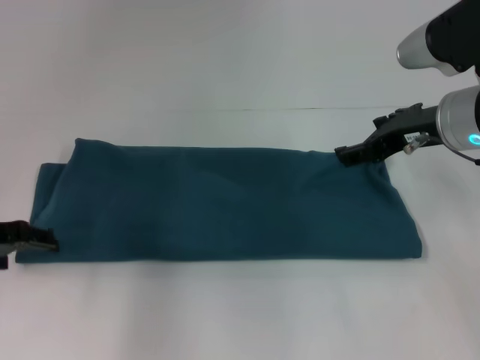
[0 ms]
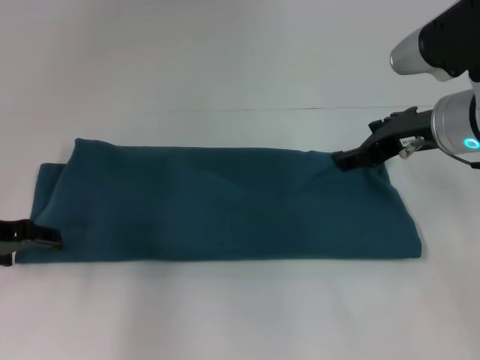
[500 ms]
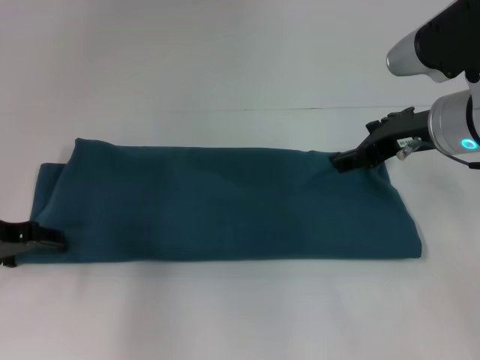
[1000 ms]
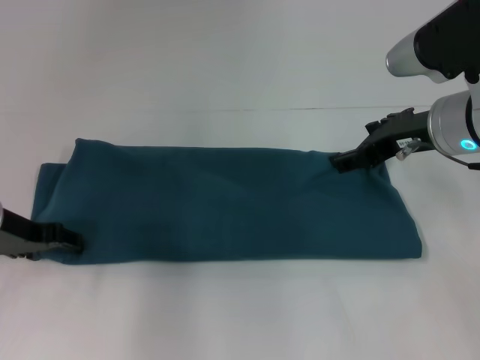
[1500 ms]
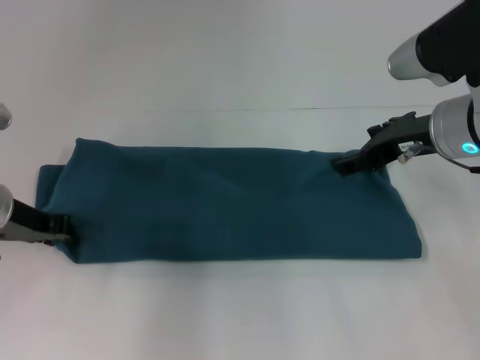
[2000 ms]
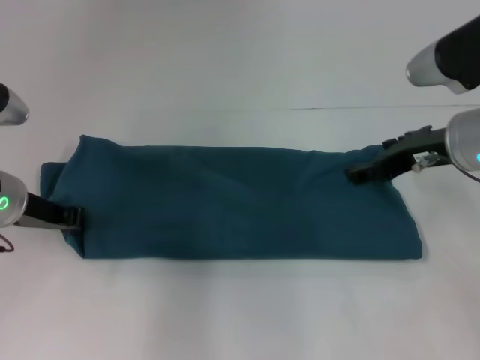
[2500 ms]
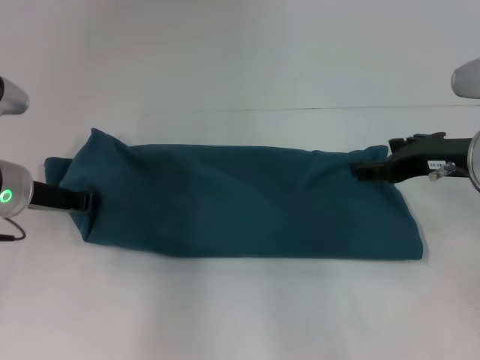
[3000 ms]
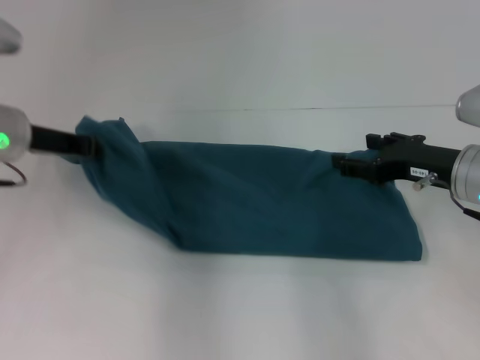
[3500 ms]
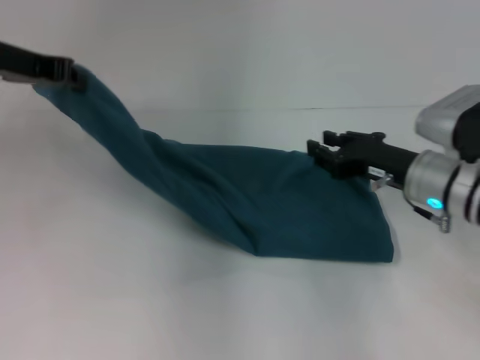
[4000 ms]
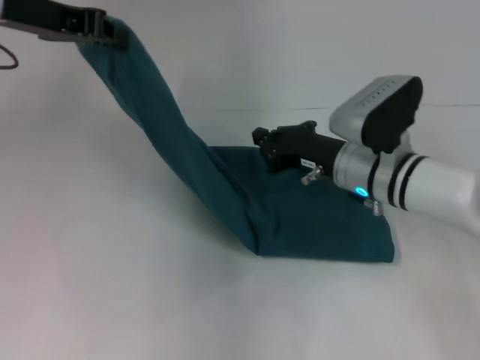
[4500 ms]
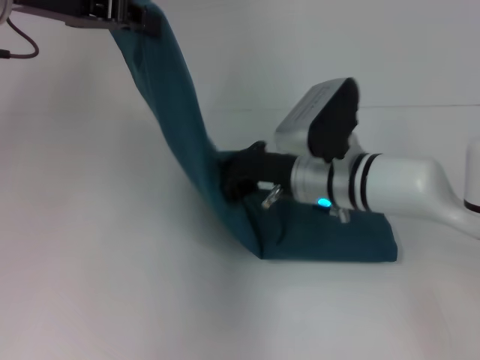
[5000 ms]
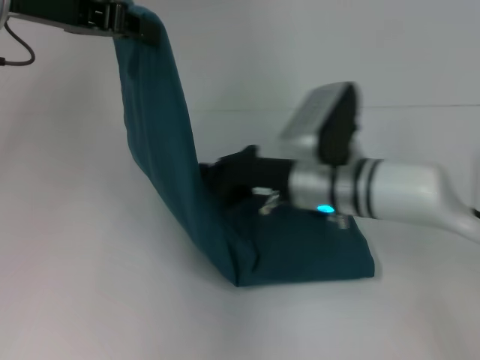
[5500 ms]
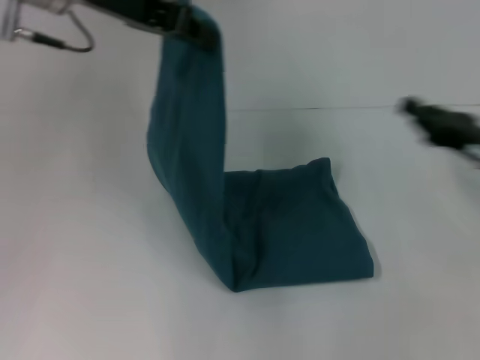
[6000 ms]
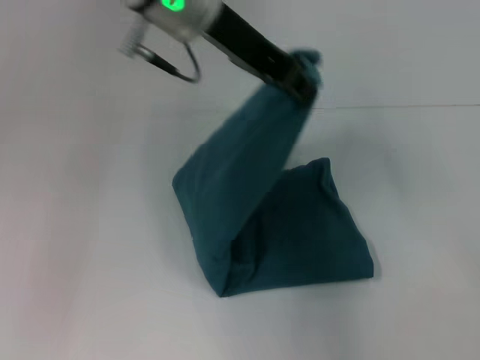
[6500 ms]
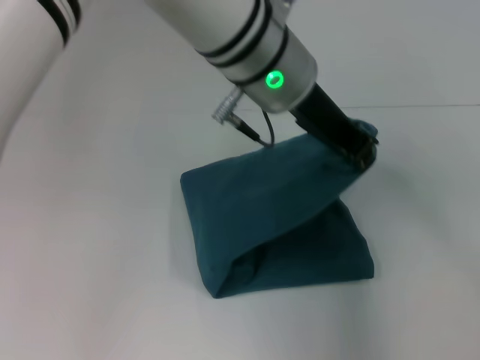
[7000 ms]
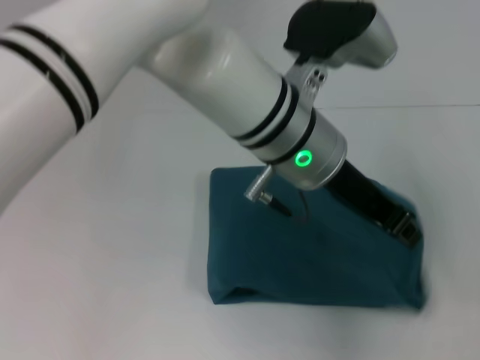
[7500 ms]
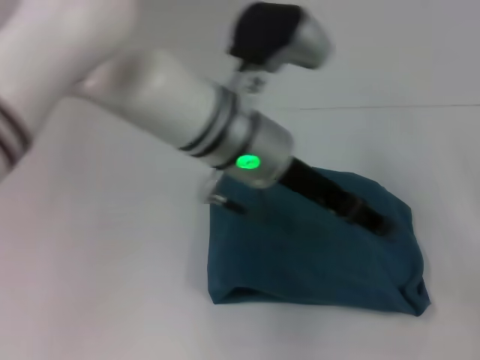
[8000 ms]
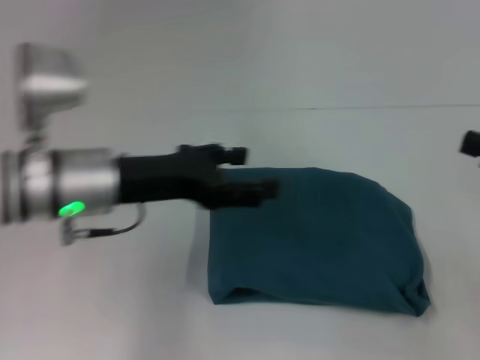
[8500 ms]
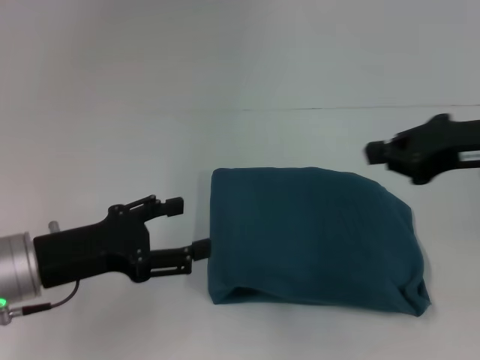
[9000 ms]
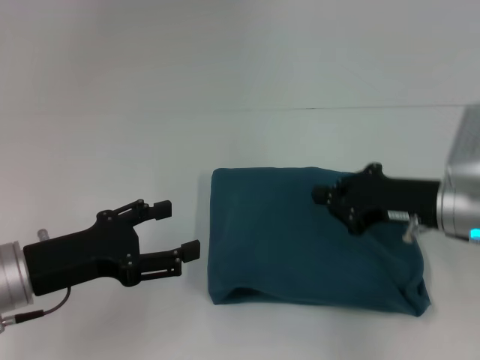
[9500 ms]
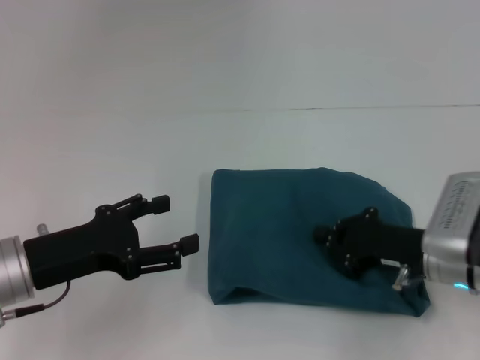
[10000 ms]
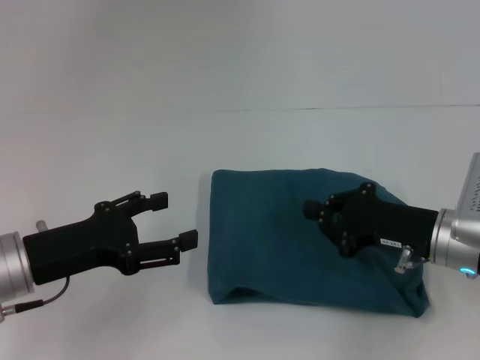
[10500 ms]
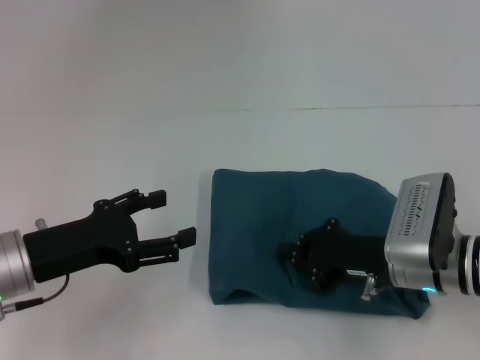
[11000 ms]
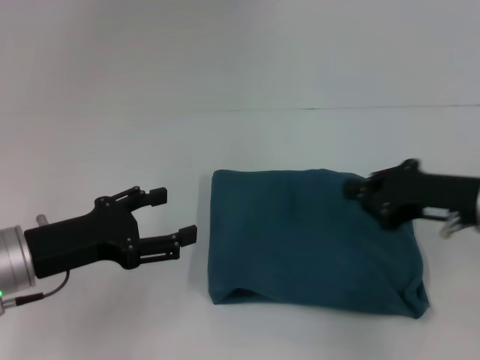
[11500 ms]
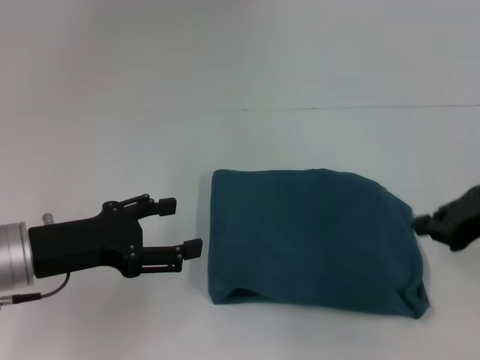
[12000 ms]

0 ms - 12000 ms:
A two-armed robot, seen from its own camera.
Step, 0 ms - 5000 ms: Press the middle of the clothes with your right hand.
Step, 5500 ms - 7500 ms: Fold the clothes to the left.
0 ms - 2000 ms: The left gripper moves approximately 5 cm, and closes.
2000 ms - 4000 ms: The right gripper heads downward, covering roughly 10 cm, and closes up. Meanwhile the left gripper heads upward, covering roughly 15 cm.
4000 ms - 6000 ms: The left gripper travels to the right and upward by some 10 cm. Meanwhile the right gripper travels to the right by some 10 cm, and closes up.
6000 ms - 8000 ms: The left gripper travels to the right, downward and backward by roughly 20 cm, and opens, while the right gripper is displaced to the right and backward by about 15 cm.
8000 ms - 10000 ms: Both grippers travel together to the left and downward, some 20 cm. The left gripper opens its fingers.
10000 ms - 12000 ms: The right gripper travels upward and to the right by approximately 15 cm.

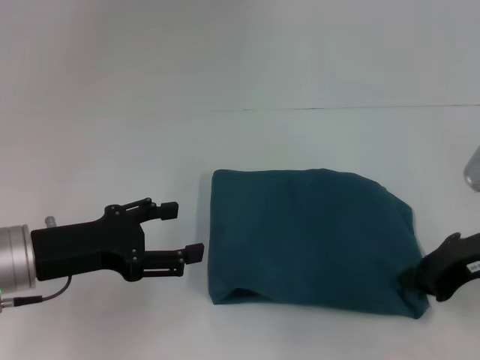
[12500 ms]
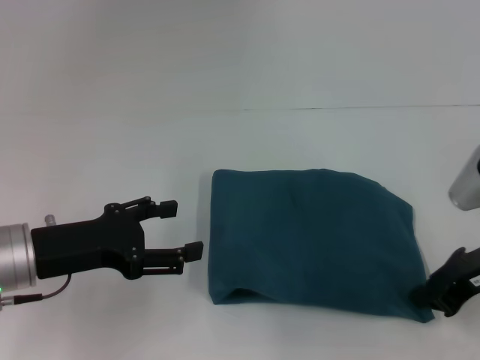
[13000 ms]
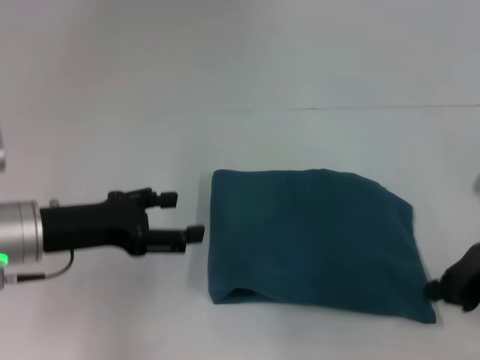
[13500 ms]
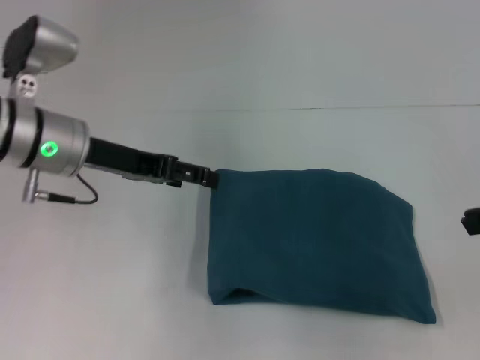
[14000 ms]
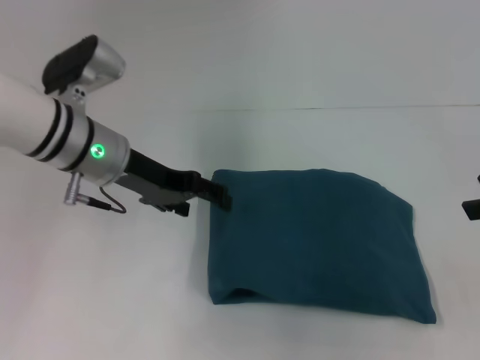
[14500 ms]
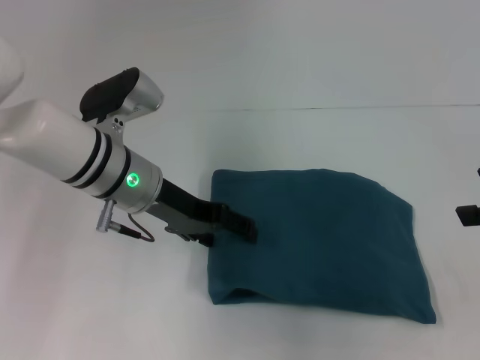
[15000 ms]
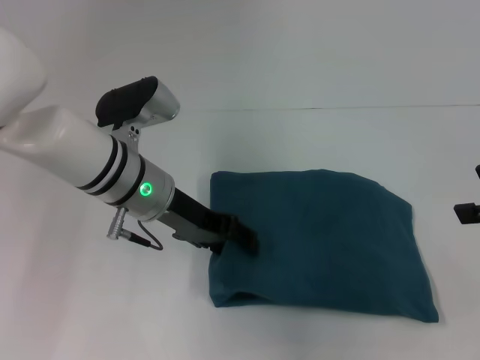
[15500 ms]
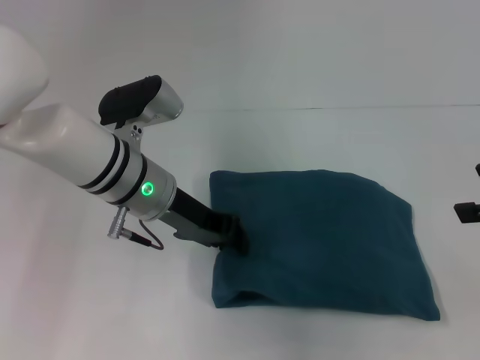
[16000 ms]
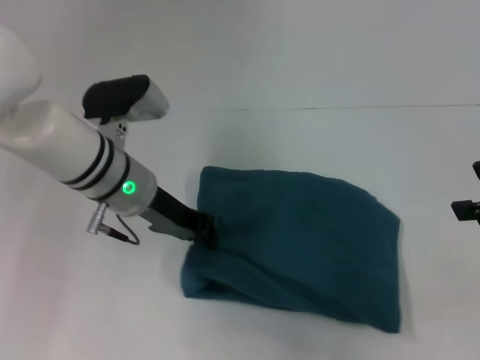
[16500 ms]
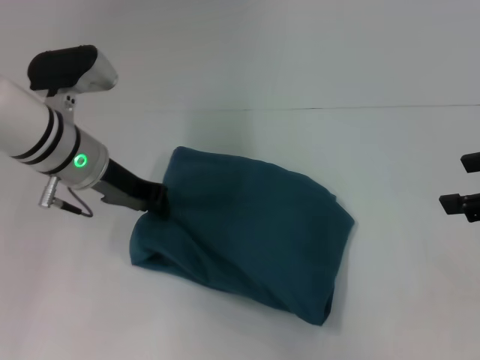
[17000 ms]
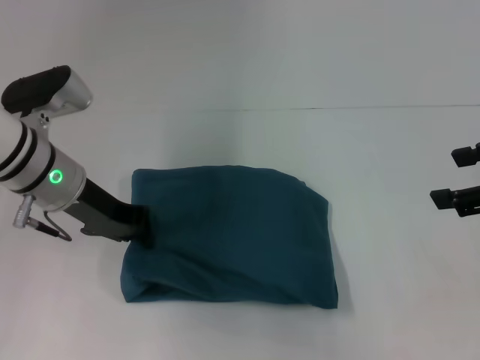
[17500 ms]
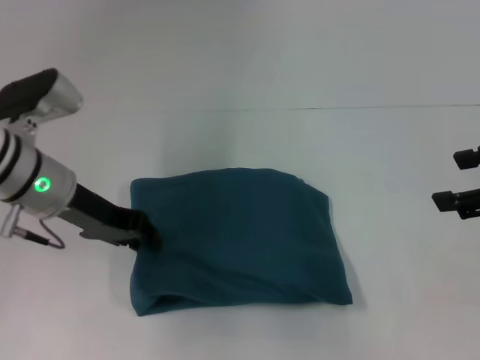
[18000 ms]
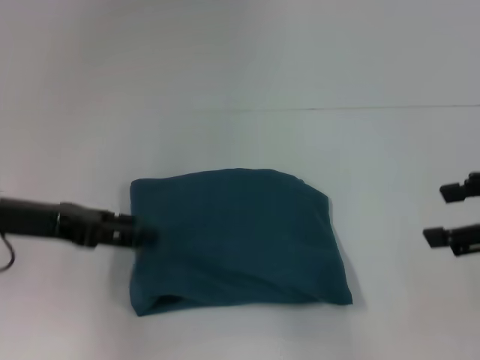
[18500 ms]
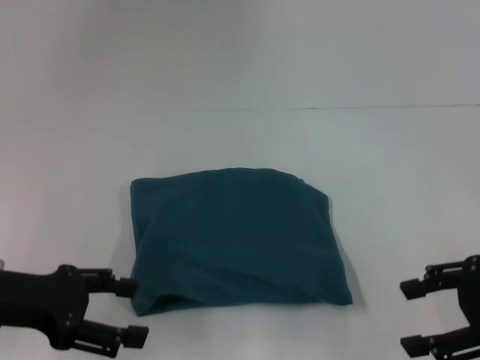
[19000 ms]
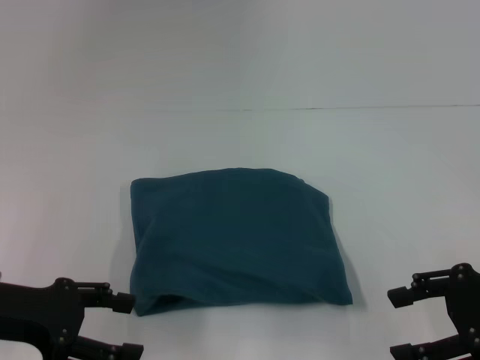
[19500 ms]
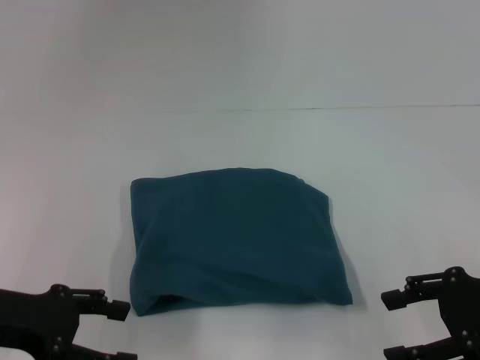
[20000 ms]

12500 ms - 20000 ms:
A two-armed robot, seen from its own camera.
12500 ms - 14500 ms: The left gripper goes roughly 15 cm forward and to the right. The right gripper shifts some 10 cm upward and to the right, and opens up.
14500 ms - 16500 ms: The left gripper closes. The right gripper opens up.
16500 ms - 18000 ms: The left gripper moves to the left, approximately 5 cm.
18000 ms - 20000 ms: The left gripper is displaced backward and to the left by about 15 cm, and opens its fingers, while the right gripper heads downward, covering about 10 cm.

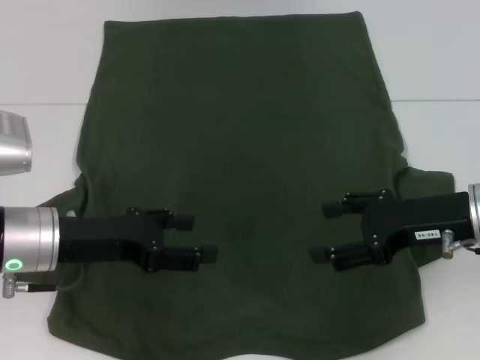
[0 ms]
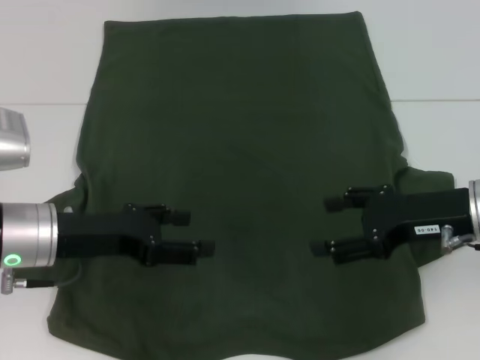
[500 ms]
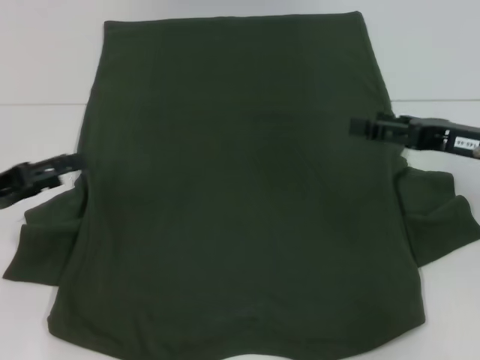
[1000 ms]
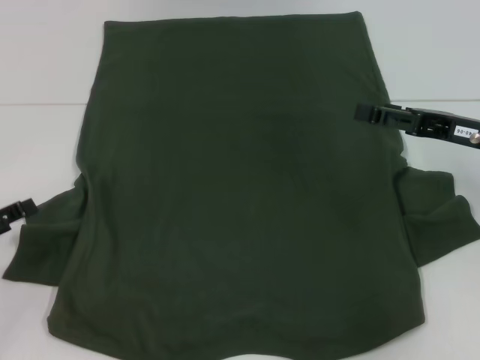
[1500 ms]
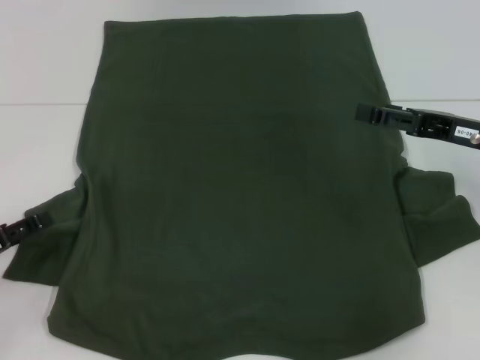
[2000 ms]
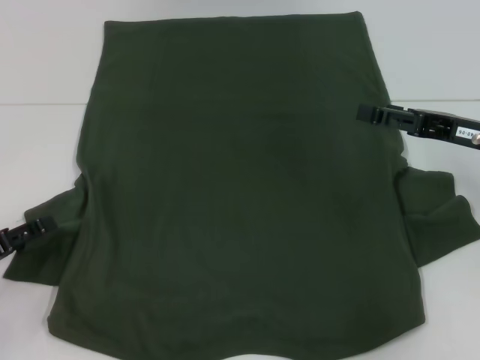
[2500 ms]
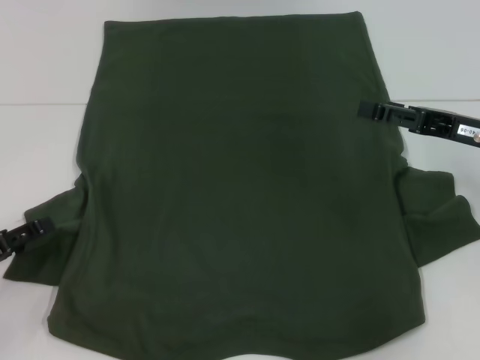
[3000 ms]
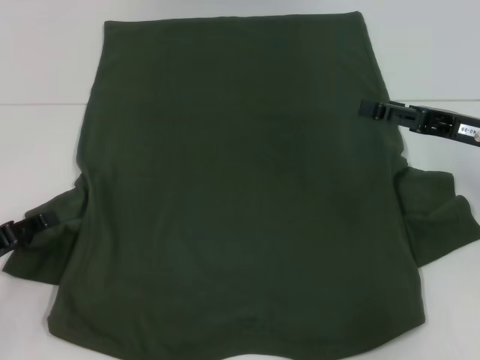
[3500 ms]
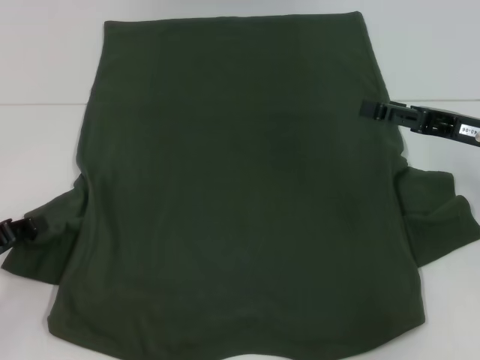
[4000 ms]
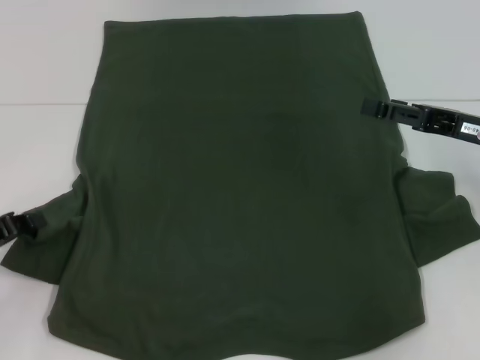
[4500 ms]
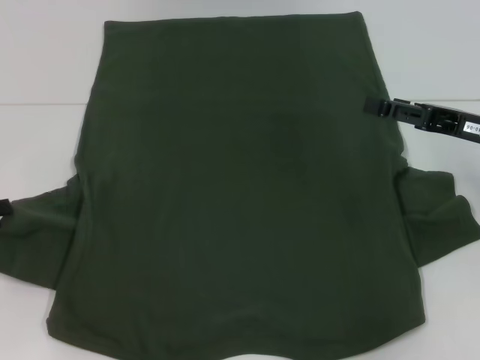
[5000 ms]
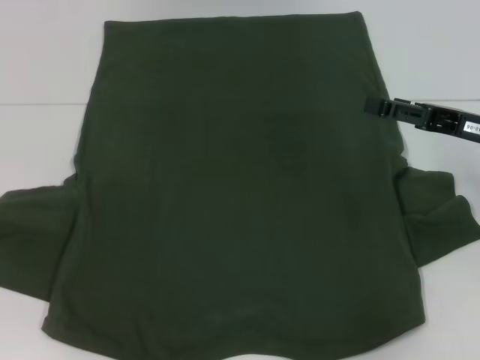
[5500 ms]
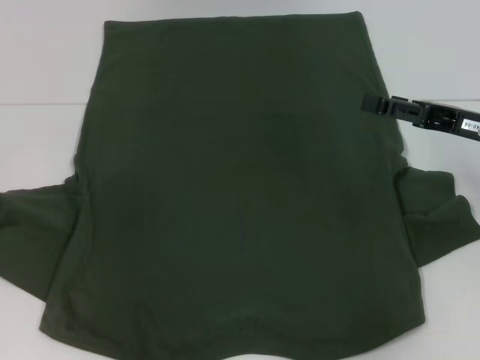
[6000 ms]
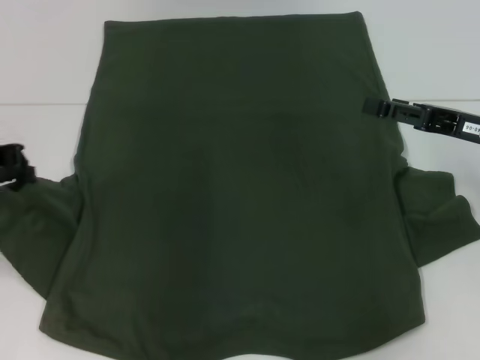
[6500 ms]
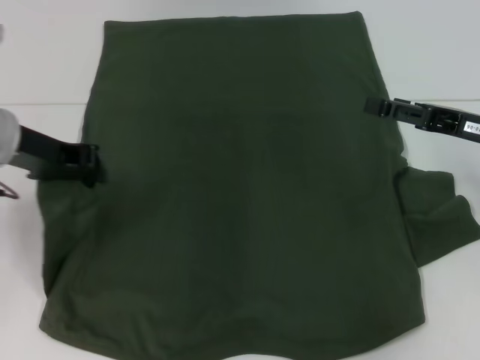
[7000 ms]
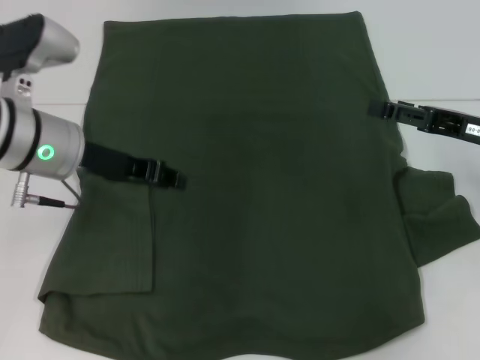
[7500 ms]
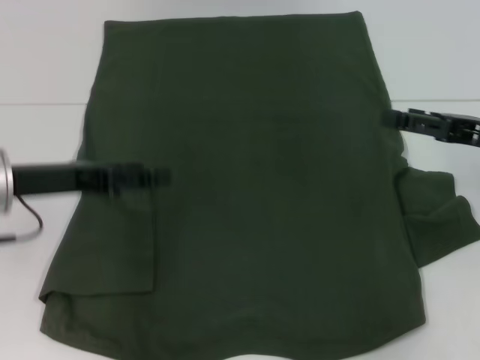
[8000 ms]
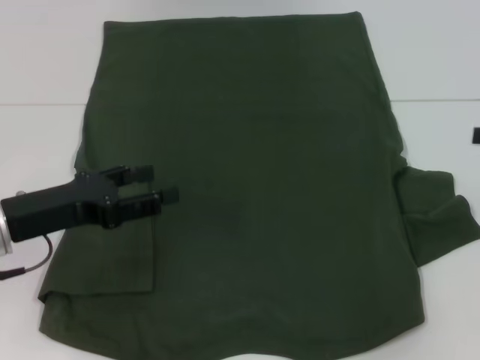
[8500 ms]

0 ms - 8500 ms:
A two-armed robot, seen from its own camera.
Step, 0 ms - 7500 ms: Fold the bottom left sleeve with your left hand.
0 ms - 2000 ms: The left gripper is displaced to the left and downward by approximately 15 cm. Meanwhile the right gripper shifts by roughly 5 cm.
2000 ms - 4000 ms: The left gripper closes up.
4000 ms - 6500 ms: The left gripper is displaced upward and forward by roughly 15 cm, and closes its fingers.
6500 ms - 8500 ms: The right gripper moves to the right, about 10 cm. The left gripper goes approximately 10 cm downward and backward, and opens up.
